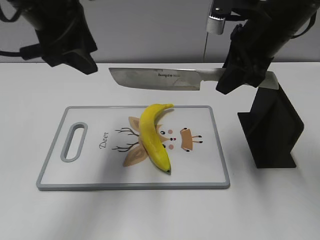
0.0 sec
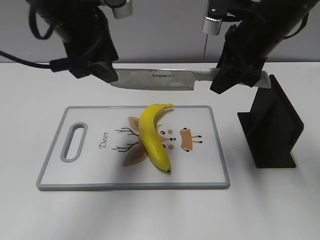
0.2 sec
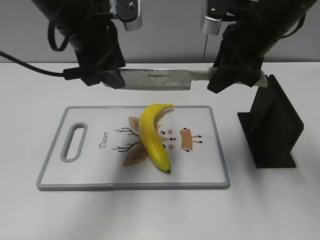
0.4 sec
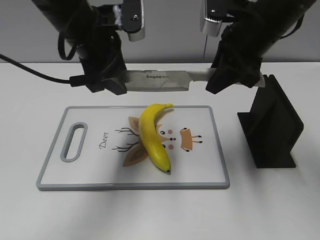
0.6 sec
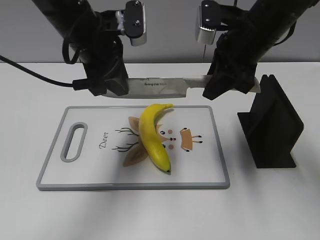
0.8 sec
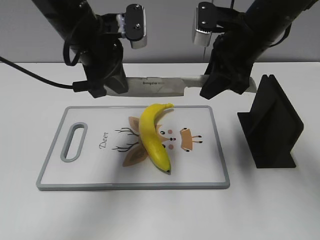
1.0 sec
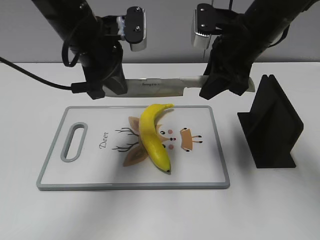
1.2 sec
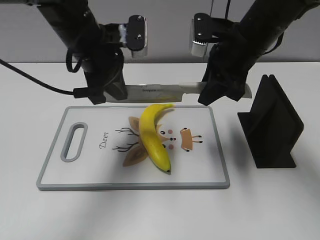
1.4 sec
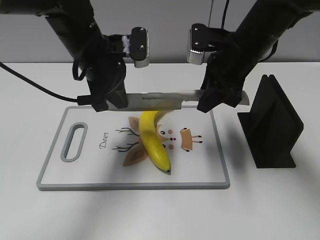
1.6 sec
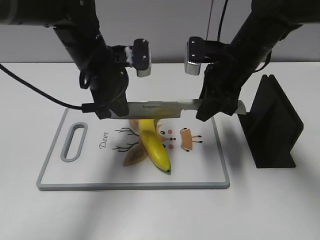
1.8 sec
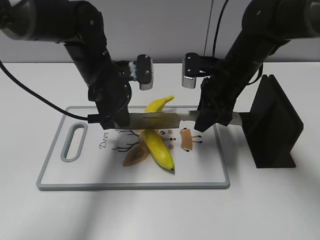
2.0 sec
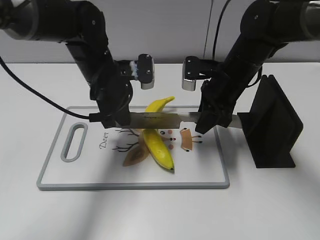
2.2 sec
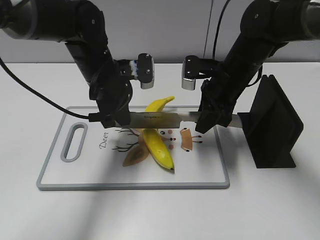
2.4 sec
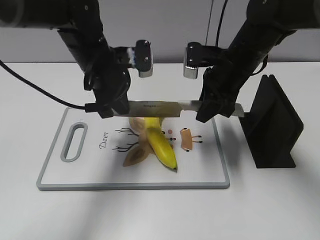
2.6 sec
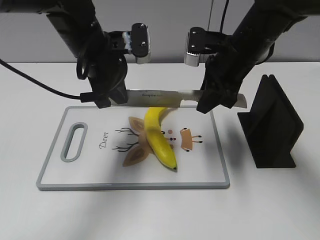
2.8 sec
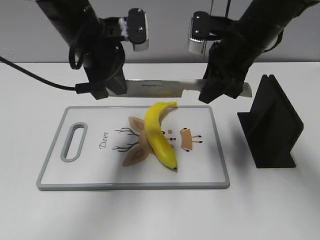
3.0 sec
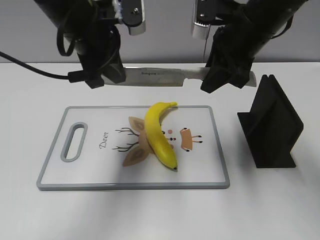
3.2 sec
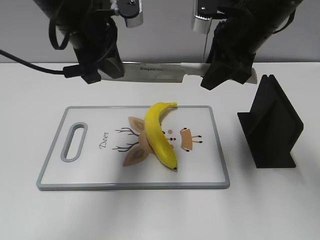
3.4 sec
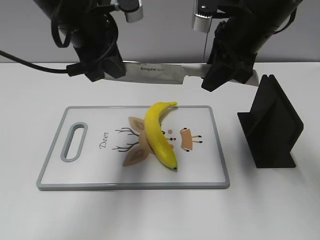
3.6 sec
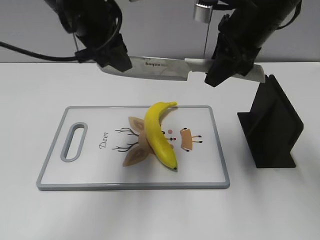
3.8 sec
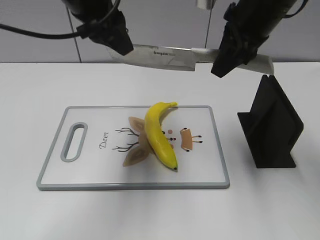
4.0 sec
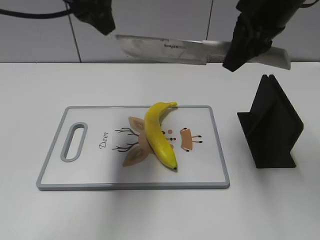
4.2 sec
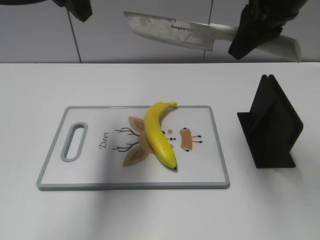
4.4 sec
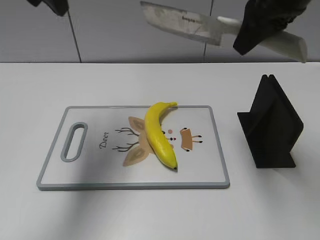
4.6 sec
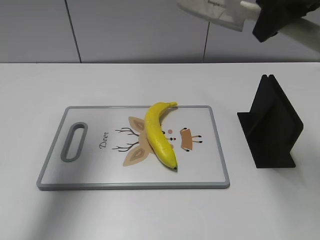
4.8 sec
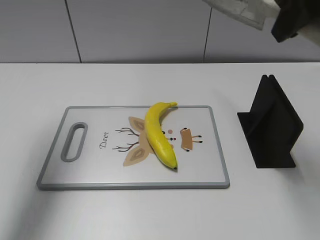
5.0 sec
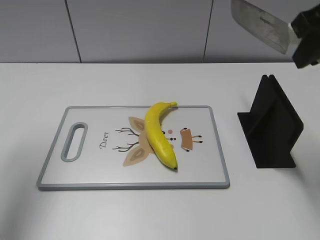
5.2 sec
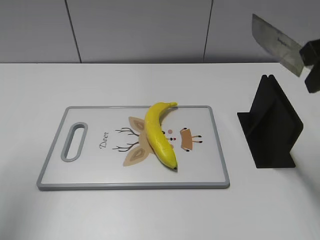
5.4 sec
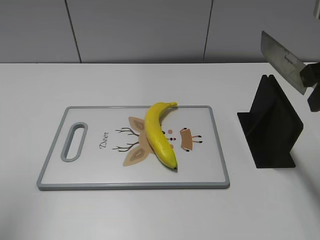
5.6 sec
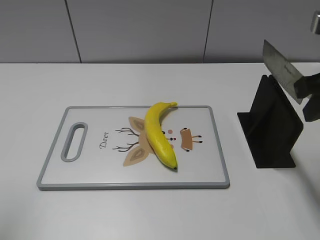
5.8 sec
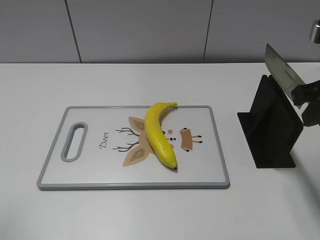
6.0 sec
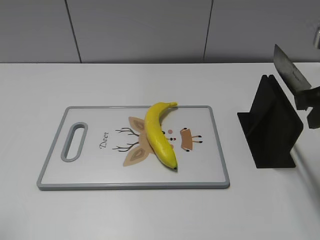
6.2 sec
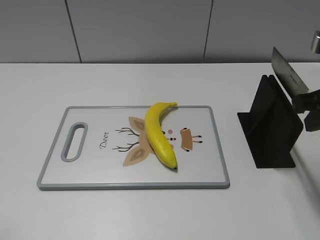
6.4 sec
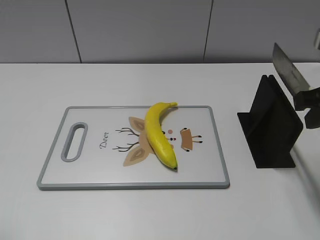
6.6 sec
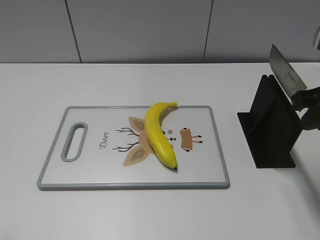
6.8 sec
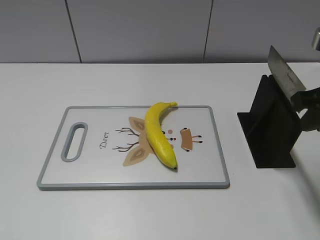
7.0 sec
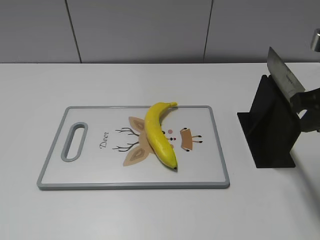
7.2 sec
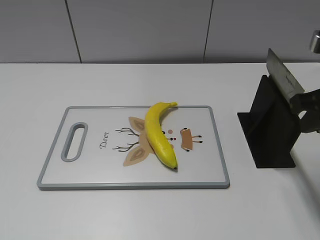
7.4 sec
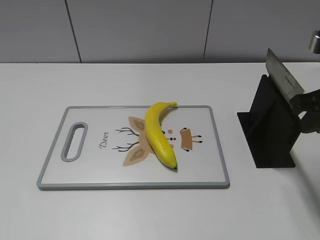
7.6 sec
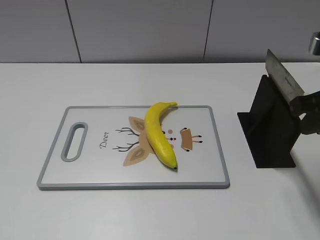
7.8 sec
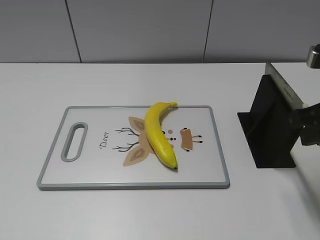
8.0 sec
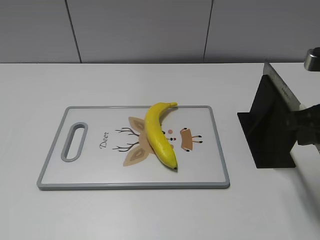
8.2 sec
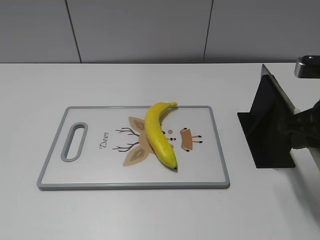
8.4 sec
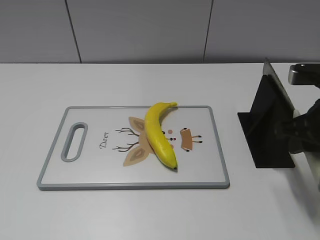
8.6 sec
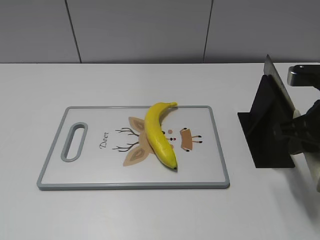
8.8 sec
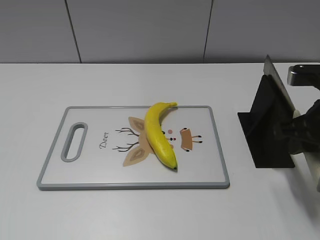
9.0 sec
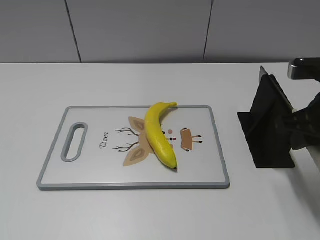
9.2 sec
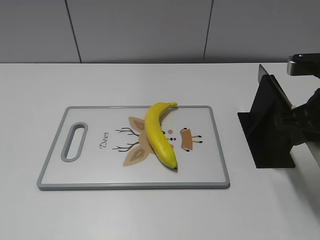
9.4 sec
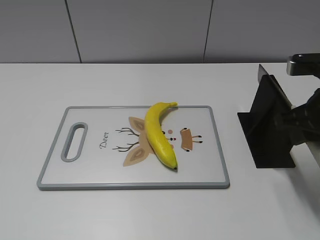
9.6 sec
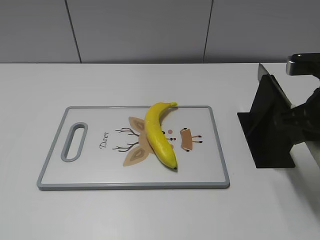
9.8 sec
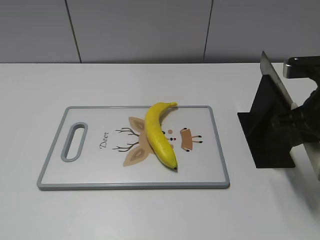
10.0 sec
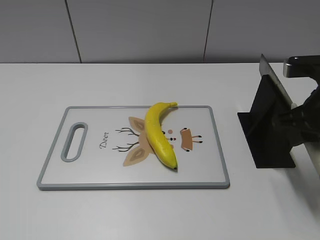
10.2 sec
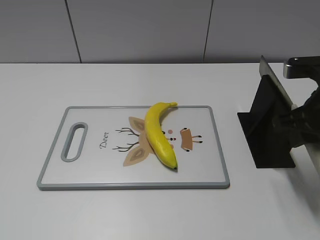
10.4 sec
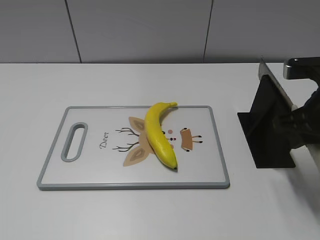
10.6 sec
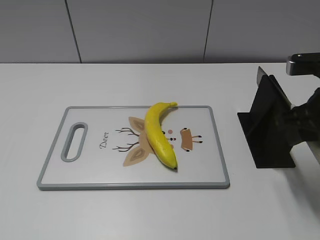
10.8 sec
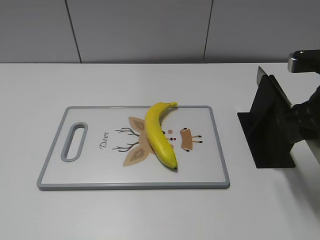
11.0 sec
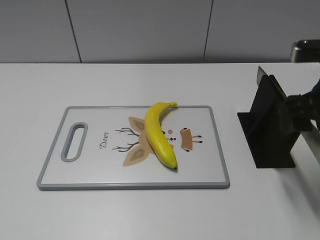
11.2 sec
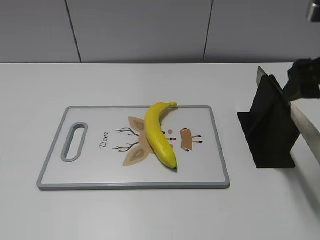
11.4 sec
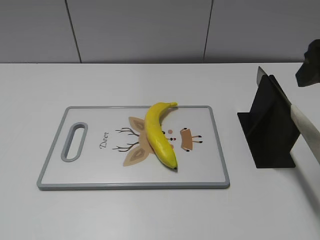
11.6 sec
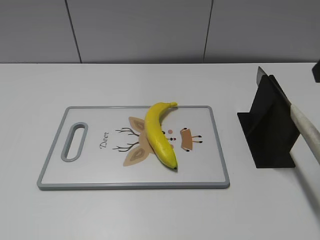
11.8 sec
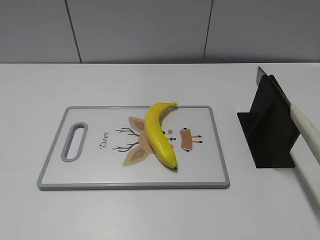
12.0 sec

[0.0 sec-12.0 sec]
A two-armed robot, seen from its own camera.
Task of the whole recording: cut plastic banana.
Step, 0.0 sec to 3.0 sec: Lift the knife with your right hand.
Step, 3.2 sec to 4.4 sec: Cut the banana with your right hand.
Step, 4.6 sec to 6.2 sec: Lift the knife with your right hand.
0.0 sec to 1.6 sec: The left gripper is displaced downward by approximately 10 cm, and closes its fingers; the right gripper heads downward, covering about 5 cm.
1.6 sec to 3.0 sec: The left gripper moves approximately 5 cm downward and comes back. Meanwhile the right gripper goes downward and returns, approximately 5 cm each way.
3.0 sec to 4.4 sec: The grippers both shift upward by roughly 10 cm. The left gripper opens its fingers.
4.4 sec to 6.0 sec: The right gripper goes about 15 cm backward, to the right and downward, while the left gripper goes about 25 cm backward and to the left.
7.6 sec to 9.0 sec: The right gripper goes roughly 5 cm downward.
9.0 sec to 10.4 sec: There are only small adjustments of the grippers.
10.4 sec to 12.0 sec: The right gripper moves upward and backward, about 15 cm, and opens.

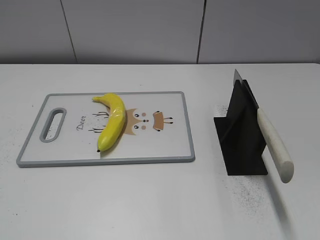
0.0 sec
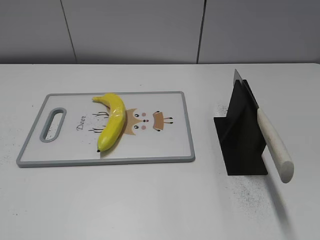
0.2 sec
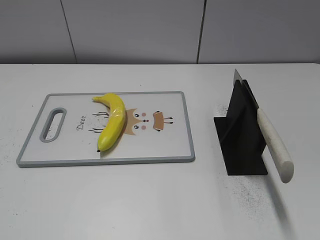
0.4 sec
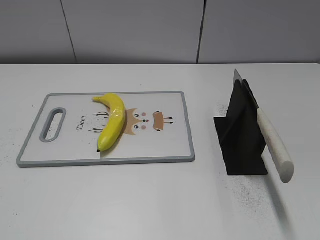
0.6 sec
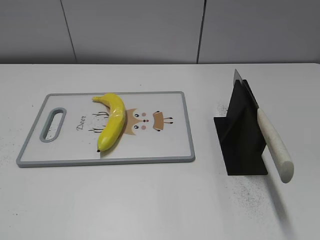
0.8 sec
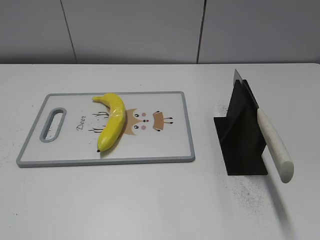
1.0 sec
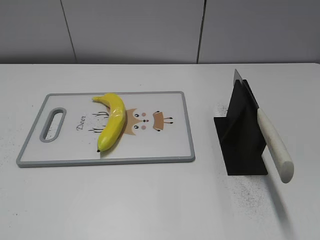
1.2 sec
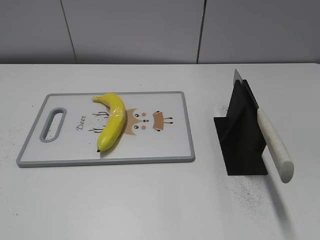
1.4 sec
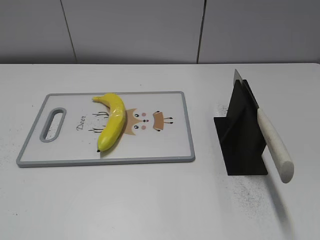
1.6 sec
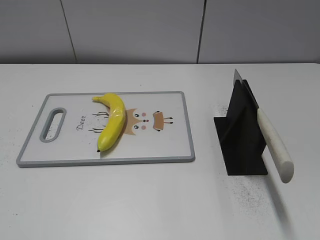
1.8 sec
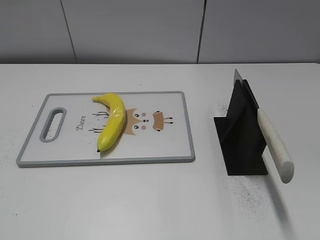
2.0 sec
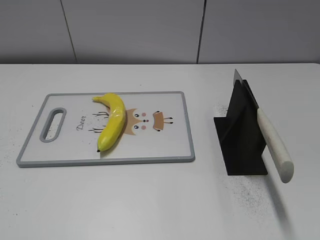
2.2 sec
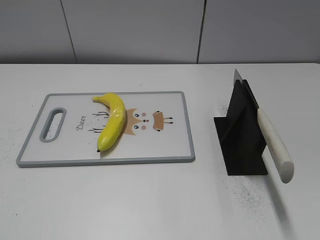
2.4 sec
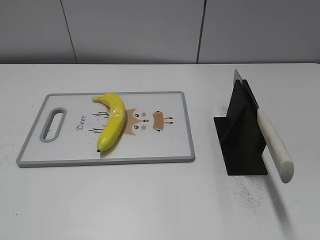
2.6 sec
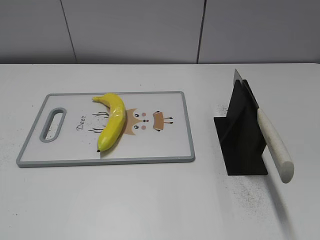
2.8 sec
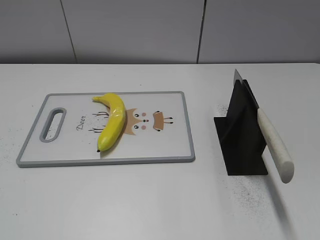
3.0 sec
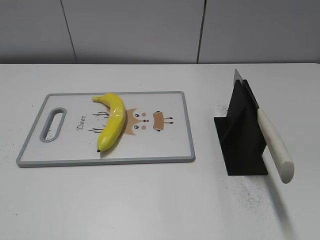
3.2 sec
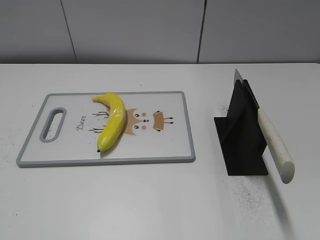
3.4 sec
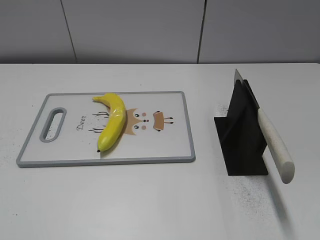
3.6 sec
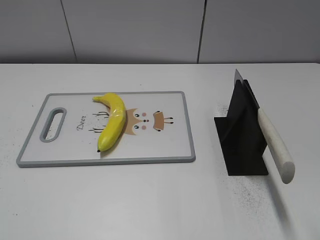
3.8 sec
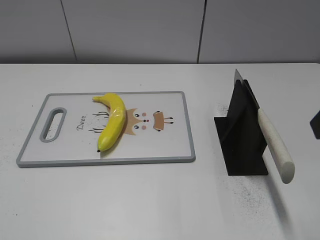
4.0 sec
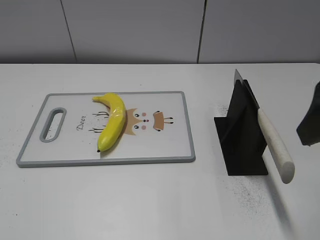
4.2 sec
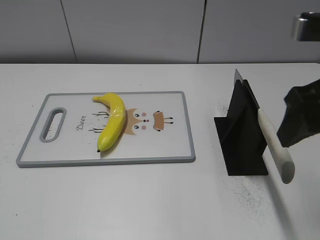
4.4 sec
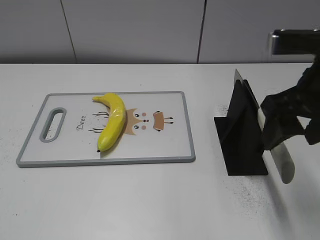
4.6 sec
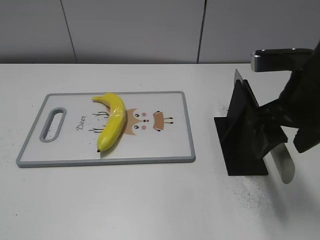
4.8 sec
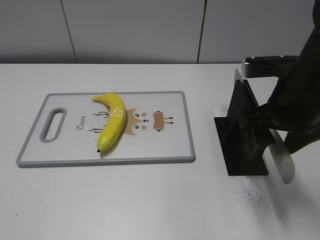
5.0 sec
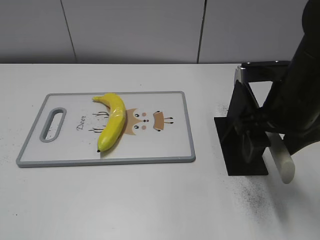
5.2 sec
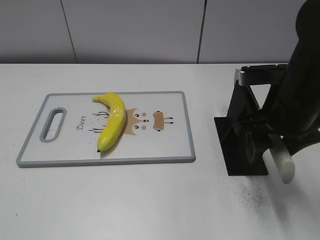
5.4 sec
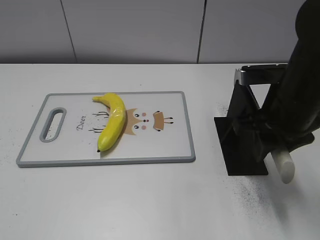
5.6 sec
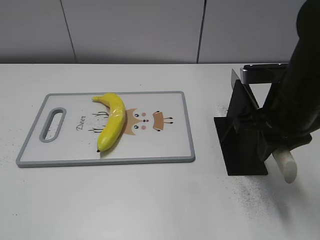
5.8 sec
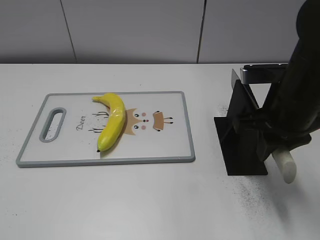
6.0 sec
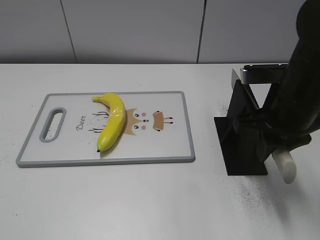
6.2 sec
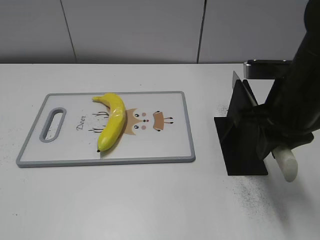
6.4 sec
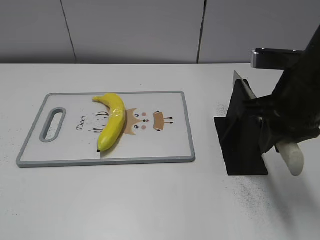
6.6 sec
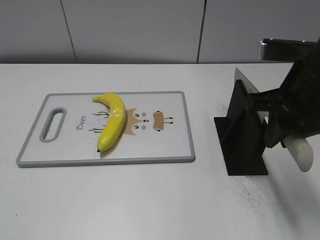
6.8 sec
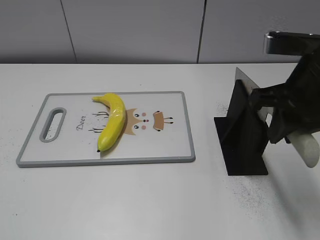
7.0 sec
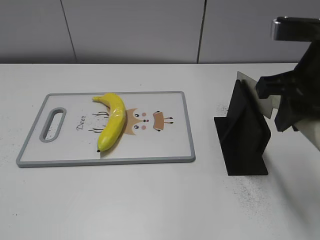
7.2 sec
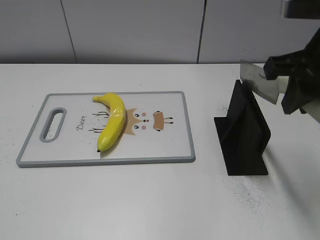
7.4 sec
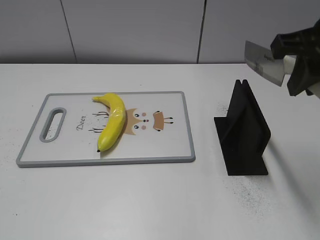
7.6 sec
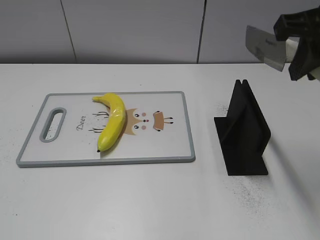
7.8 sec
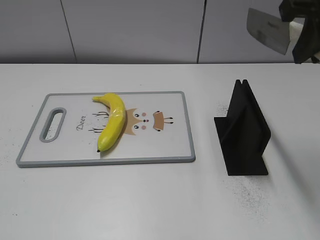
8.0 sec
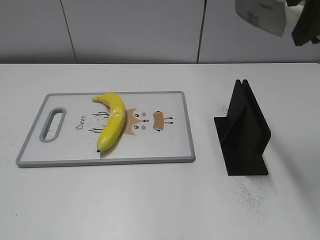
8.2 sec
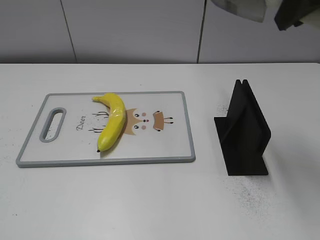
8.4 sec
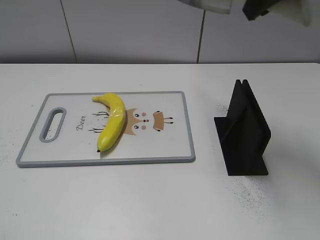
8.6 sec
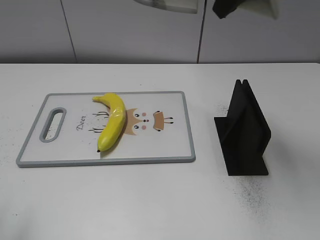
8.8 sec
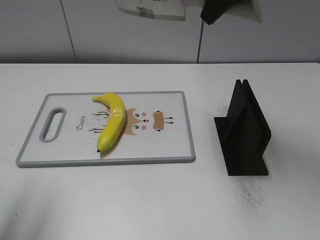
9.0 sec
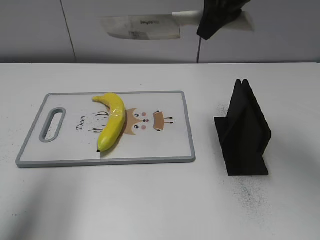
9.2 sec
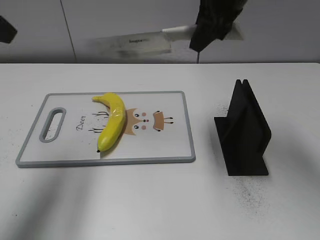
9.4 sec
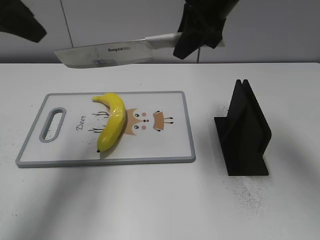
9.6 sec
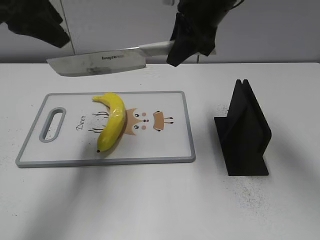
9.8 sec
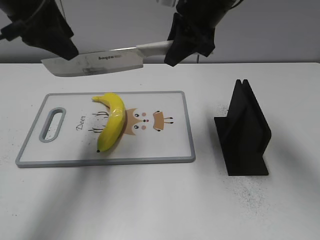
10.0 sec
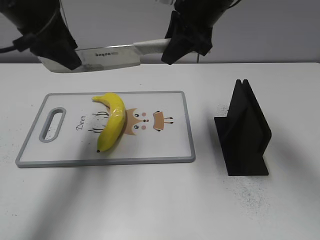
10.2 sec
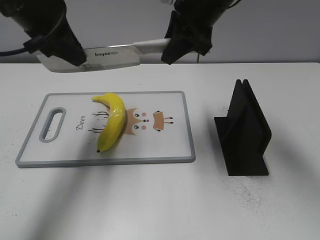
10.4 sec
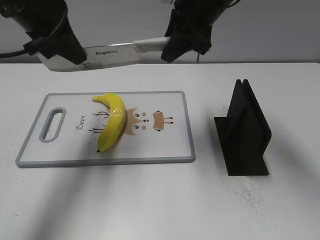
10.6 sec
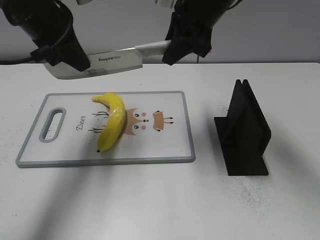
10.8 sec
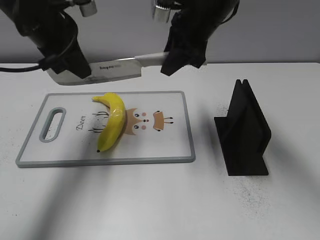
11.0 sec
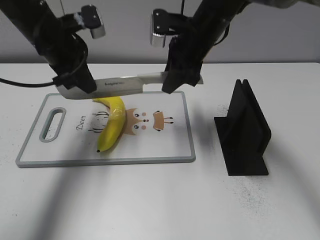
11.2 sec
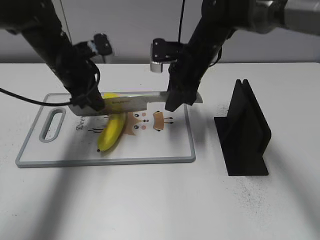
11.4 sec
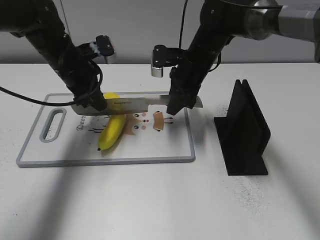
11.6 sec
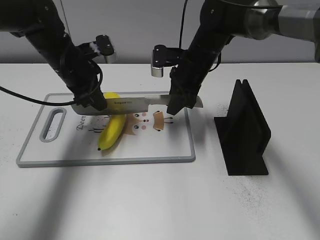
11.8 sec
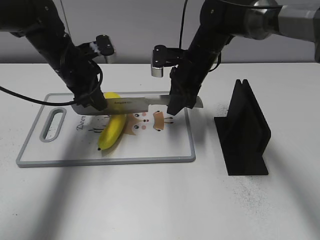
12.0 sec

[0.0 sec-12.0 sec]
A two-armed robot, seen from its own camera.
Task of the whole recording: cut plastic banana.
Step, 0.0 sec to 7.0 sec: Grab the knife handle with your right hand.
3.0 sec to 4.4 sec: The right gripper travels forward and to the left by about 15 cm.
4.4 sec to 6.0 sec: The right gripper is displaced downward and forward by approximately 10 cm, and closes.
6.0 sec to 7.6 sec: The right gripper heads upward, covering some 10 cm.
7.6 sec to 9.0 sec: The left gripper travels forward and upward by roughly 15 cm. The right gripper is displaced forward and to the left by roughly 15 cm.
9.0 sec to 10.4 sec: The left gripper shifts about 25 cm forward and to the right; the right gripper goes about 10 cm downward.
10.4 sec to 12.0 sec: Both grippers move downward, approximately 15 cm. The left gripper closes.
